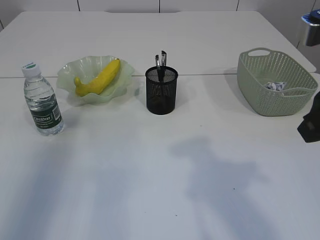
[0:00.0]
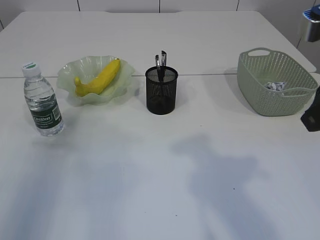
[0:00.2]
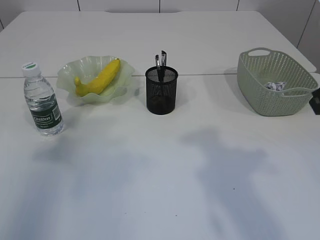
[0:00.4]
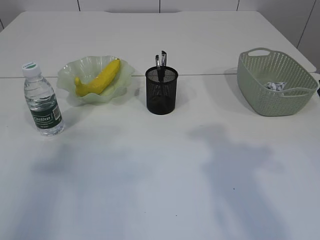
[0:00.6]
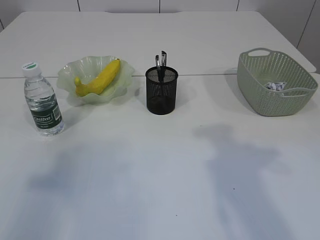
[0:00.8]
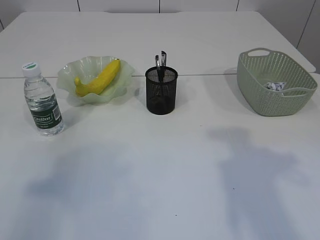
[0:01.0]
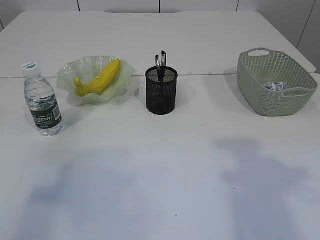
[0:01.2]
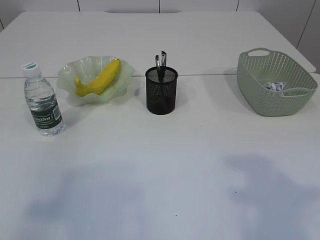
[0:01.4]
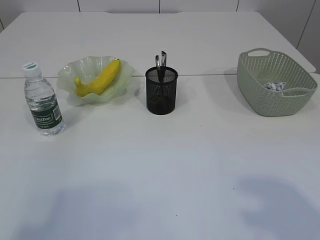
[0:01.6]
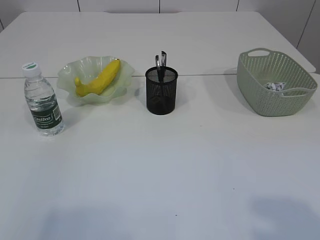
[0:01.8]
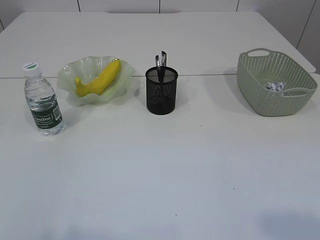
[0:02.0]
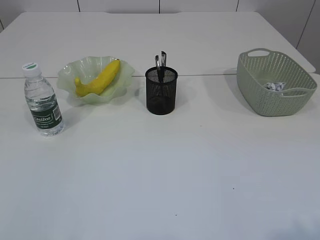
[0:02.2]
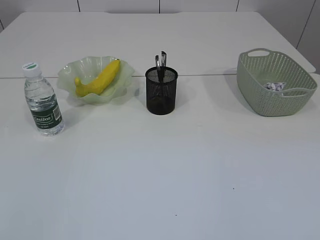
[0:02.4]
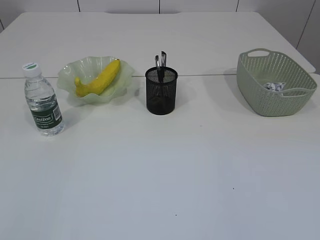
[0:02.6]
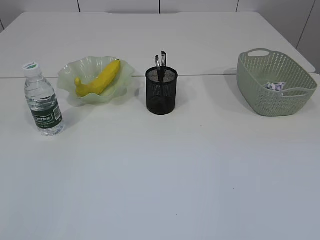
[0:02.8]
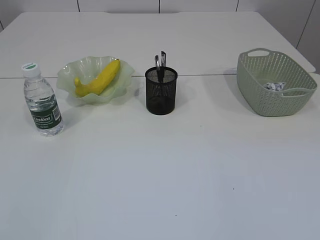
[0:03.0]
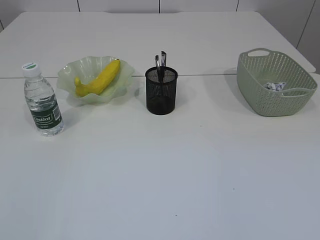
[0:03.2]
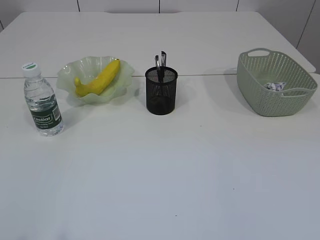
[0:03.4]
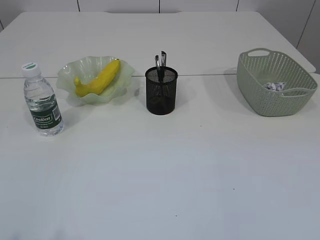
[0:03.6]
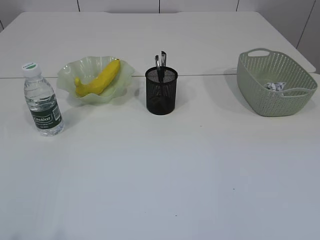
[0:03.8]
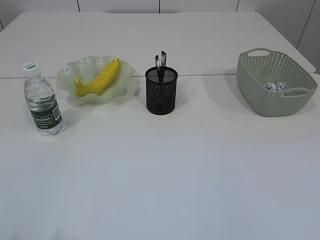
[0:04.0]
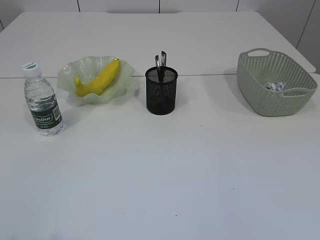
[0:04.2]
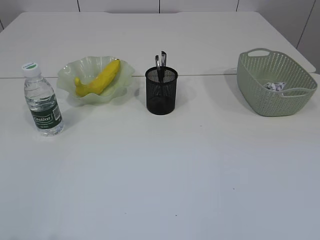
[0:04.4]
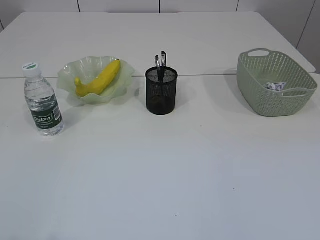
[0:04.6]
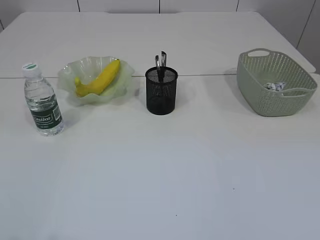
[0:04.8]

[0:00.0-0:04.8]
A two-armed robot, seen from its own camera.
0:00.0 to 0:01.6: The left gripper heads backward, covering roughly 25 cm; the right gripper is displaced backward and to the right by some 15 cm.
0:01.6 to 0:03.2: The left gripper heads downward and backward, covering roughly 10 cm.

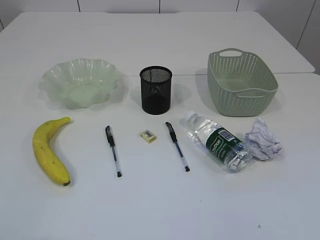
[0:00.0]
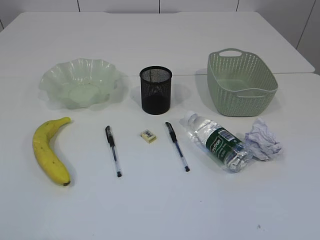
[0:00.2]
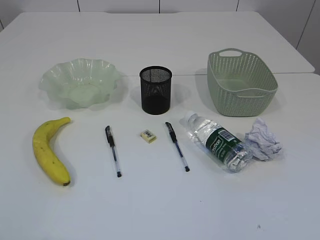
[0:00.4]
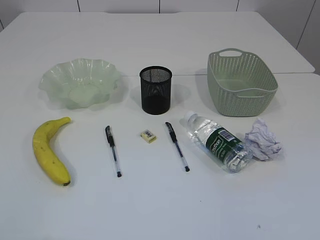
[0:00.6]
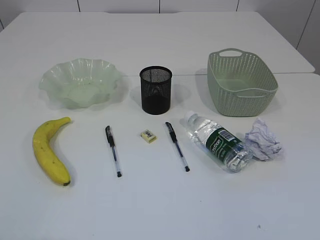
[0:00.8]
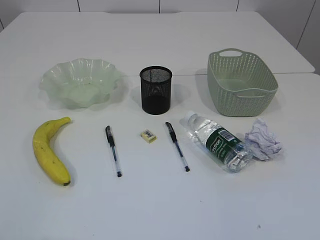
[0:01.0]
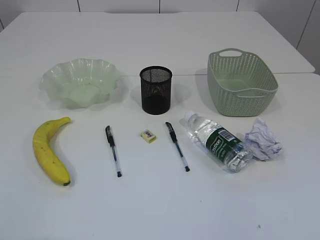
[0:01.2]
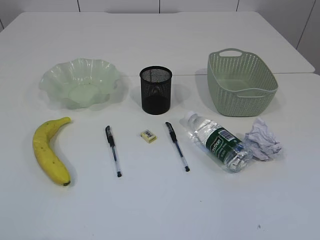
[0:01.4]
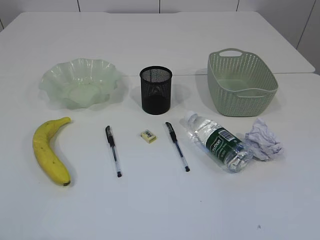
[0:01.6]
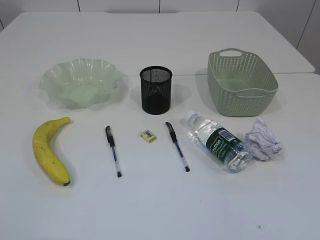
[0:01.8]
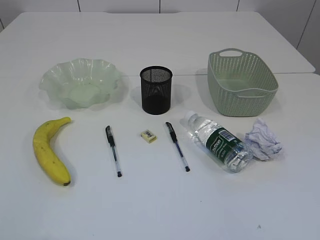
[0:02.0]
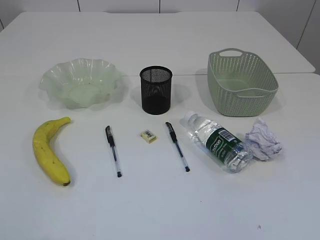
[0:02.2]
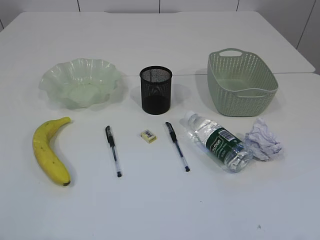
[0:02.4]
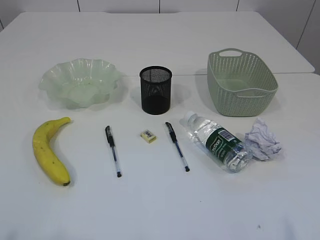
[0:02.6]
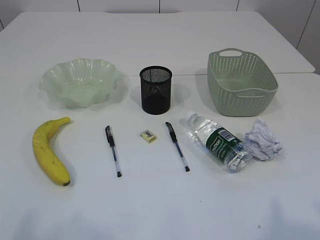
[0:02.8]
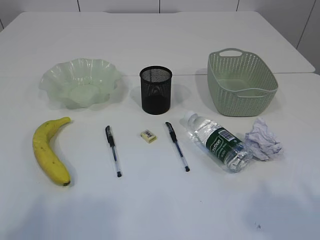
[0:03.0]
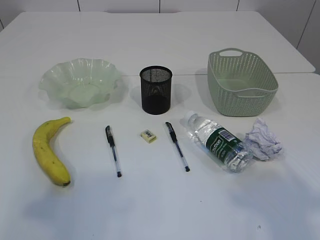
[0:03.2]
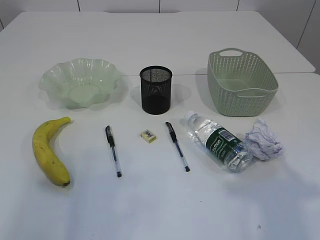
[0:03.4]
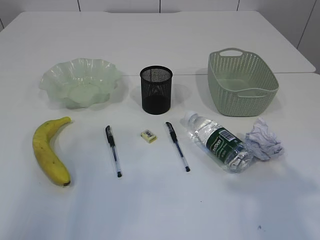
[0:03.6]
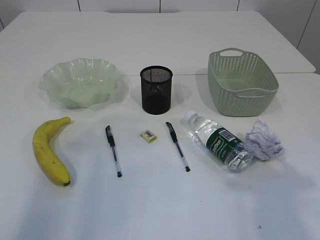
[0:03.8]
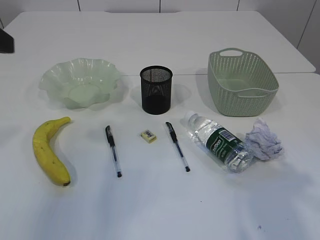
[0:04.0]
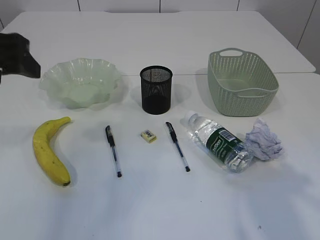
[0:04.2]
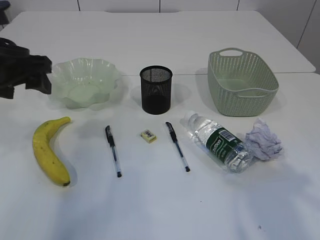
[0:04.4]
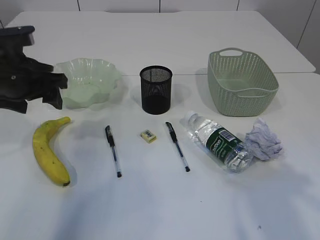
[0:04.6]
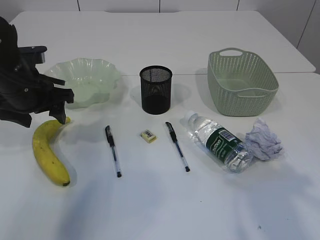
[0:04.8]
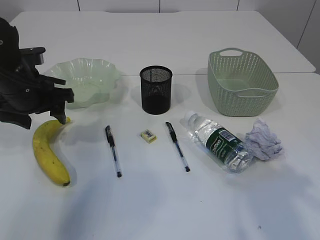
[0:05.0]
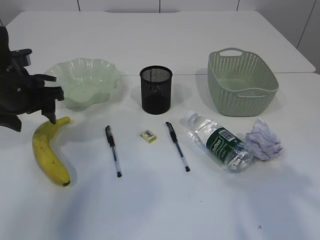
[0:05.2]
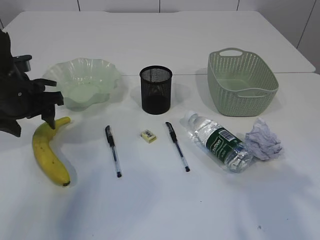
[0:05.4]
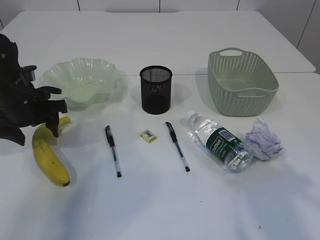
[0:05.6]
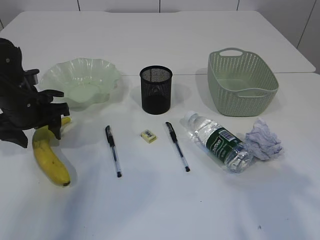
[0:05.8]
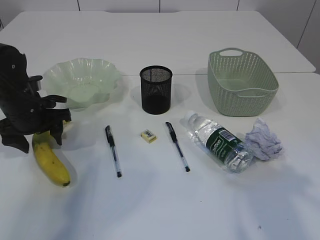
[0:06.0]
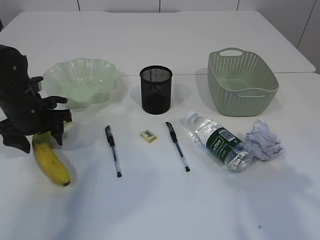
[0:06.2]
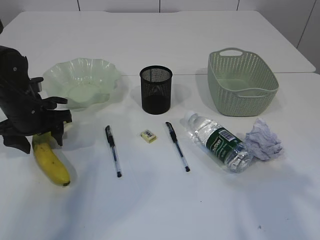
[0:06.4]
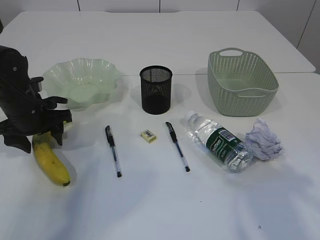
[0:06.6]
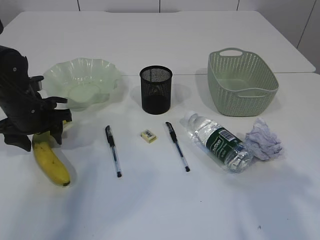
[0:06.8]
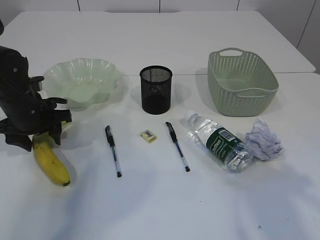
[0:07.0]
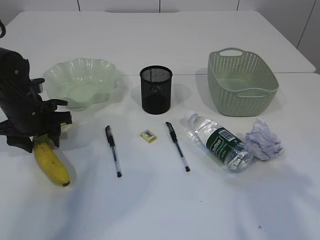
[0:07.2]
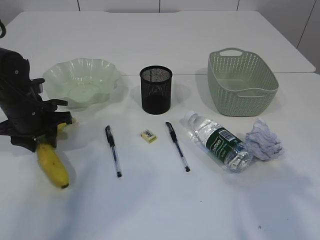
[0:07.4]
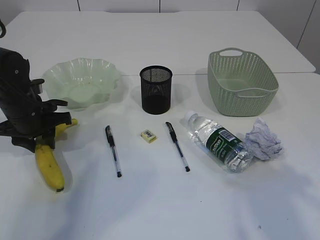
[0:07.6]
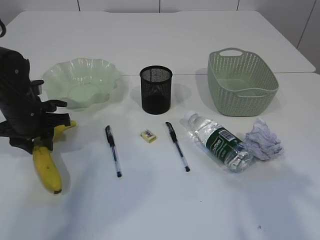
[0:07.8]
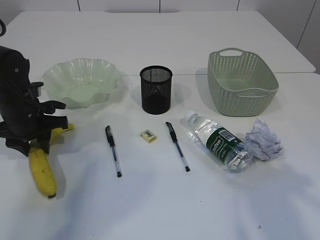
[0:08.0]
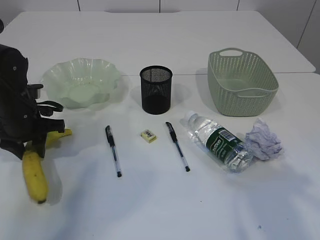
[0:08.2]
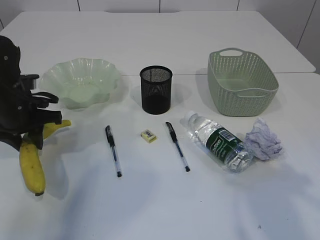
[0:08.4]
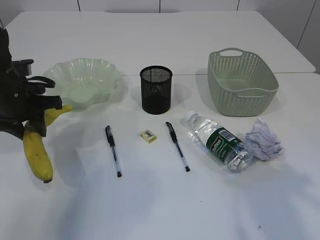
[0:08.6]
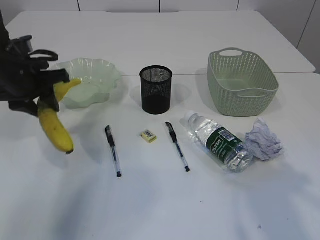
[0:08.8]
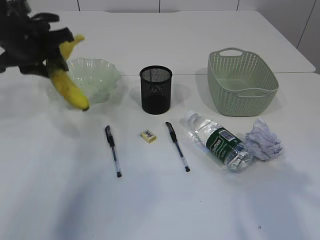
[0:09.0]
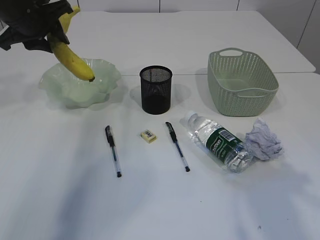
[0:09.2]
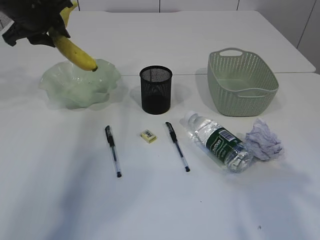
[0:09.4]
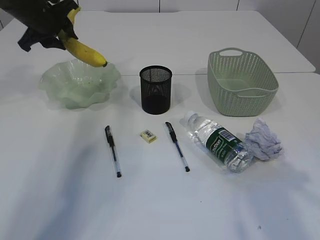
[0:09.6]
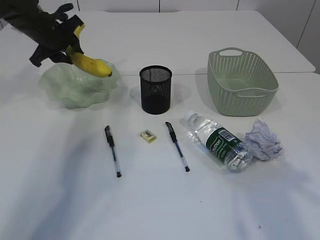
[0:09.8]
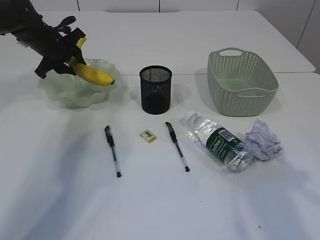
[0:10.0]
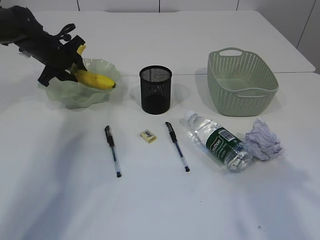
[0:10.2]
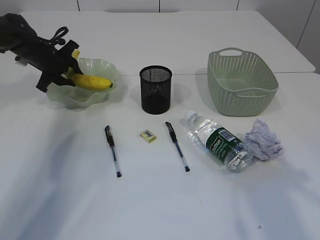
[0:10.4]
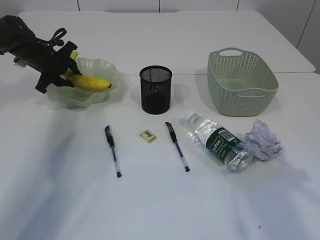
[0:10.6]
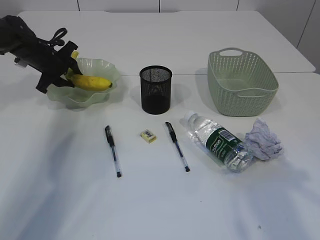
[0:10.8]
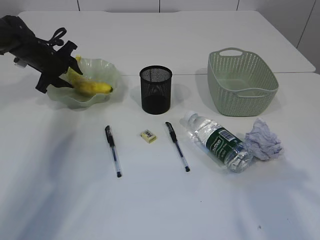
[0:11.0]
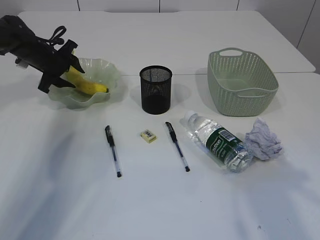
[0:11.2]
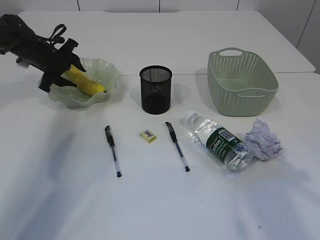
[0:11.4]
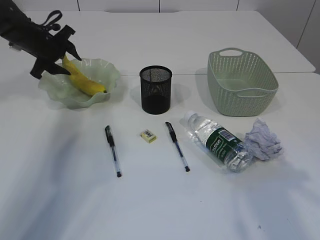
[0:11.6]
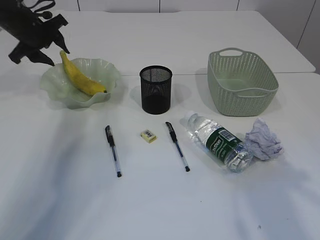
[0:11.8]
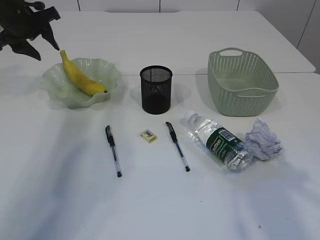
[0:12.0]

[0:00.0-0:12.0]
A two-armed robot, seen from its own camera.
Step, 0:08.8 to 0:11.8: Place the banana in the plate.
0:01.6 to 0:03.0: The left gripper moves about 5 cm.
0:03.0 to 0:04.4: The left gripper goes roughly 30 cm forward. Meanwhile the right gripper goes about 10 cm forward.
0:04.4 to 0:06.0: The left gripper goes roughly 15 cm downward and forward.
0:06.0 to 0:07.6: The left gripper closes.
0:07.6 to 0:09.0: The left gripper moves upward, approximately 10 cm.
0:09.0 to 0:10.4: The left gripper heads forward and downward, covering about 20 cm.
0:10.4 to 0:12.0: The left gripper is displaced upward by about 10 cm.

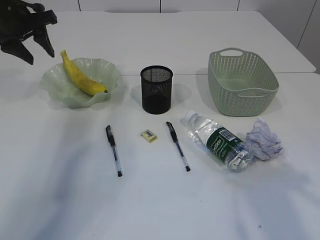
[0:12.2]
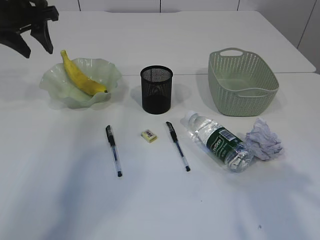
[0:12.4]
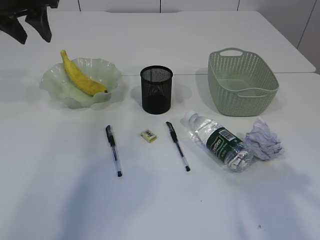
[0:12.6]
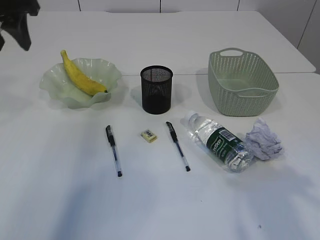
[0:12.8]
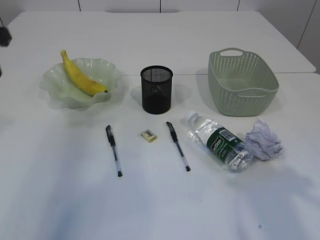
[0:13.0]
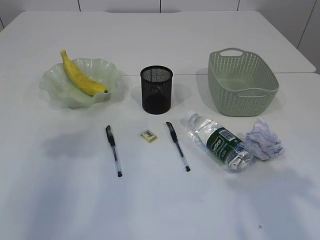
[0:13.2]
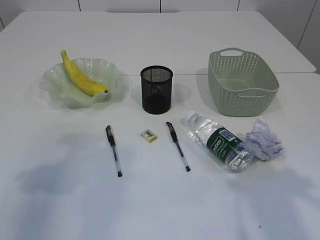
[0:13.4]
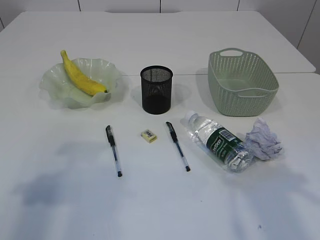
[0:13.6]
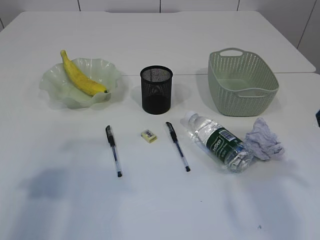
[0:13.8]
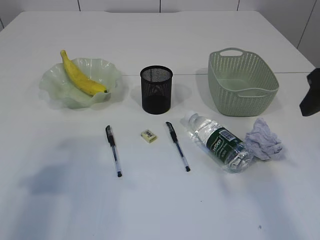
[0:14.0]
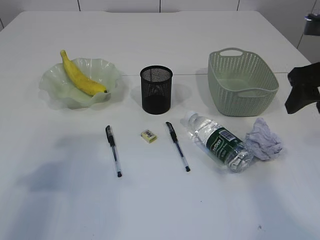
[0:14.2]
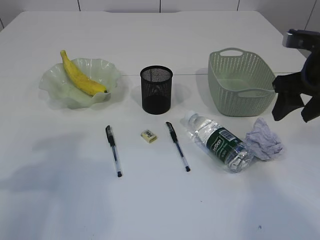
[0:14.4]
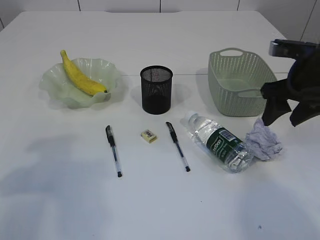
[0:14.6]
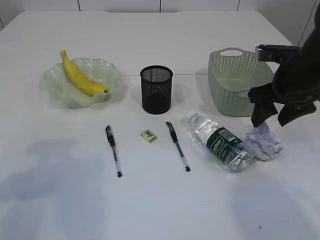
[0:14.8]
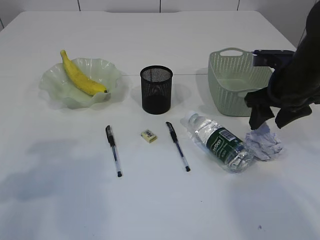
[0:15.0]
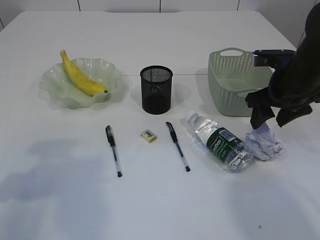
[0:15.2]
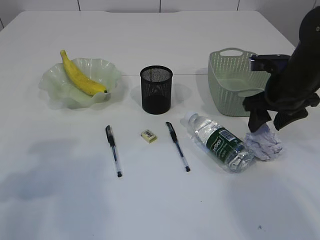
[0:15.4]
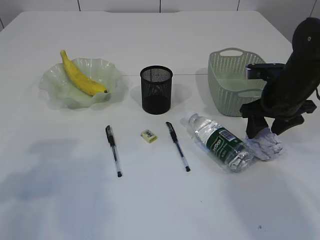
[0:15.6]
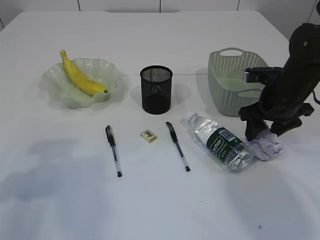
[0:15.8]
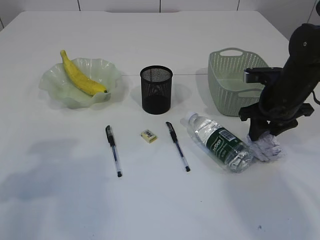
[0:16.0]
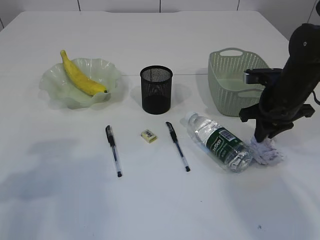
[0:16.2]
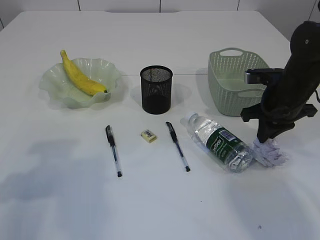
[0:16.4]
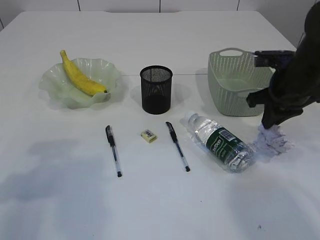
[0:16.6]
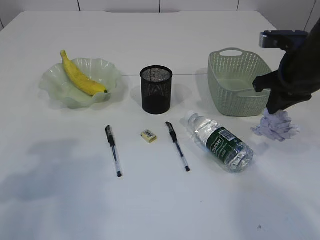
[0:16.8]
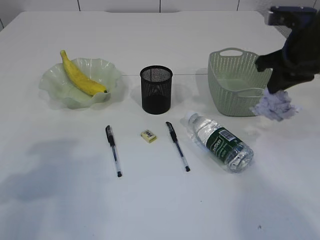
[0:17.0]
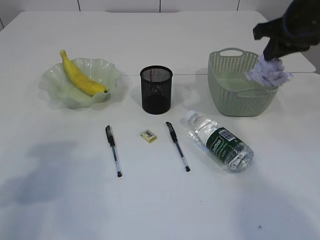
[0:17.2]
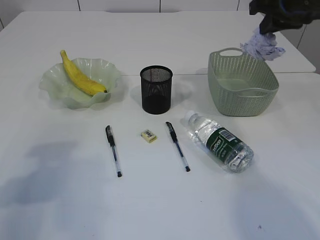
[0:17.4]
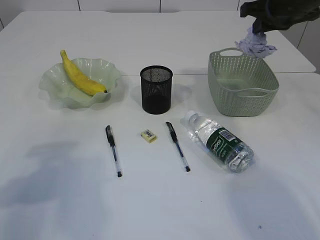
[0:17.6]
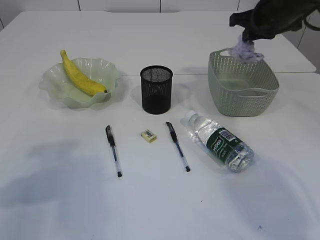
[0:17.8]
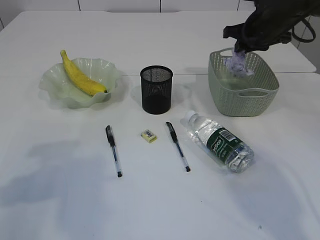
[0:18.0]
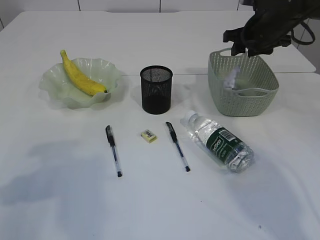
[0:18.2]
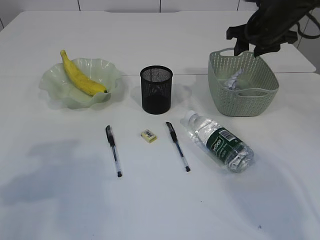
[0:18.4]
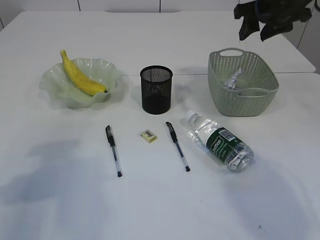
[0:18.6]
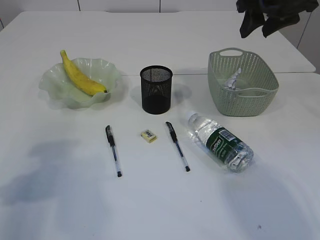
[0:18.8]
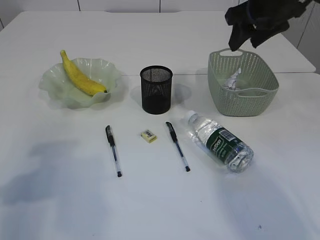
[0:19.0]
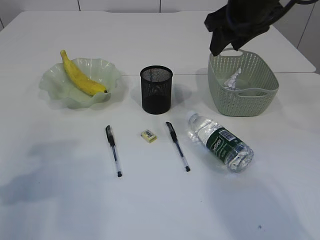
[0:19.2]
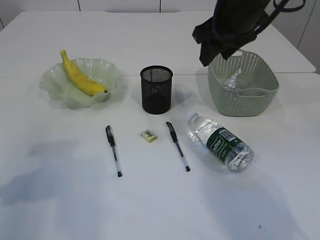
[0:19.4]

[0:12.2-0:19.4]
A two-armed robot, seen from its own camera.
Step, 0:12.2 to 0:16.6: Pick up the waste paper.
Step, 0:16.8 to 0:18.4: Place the waste paper in the basket.
0:12.2 to 0:13.6: The left gripper moves backward, roughly 30 cm.
0:13.6 to 0:15.0: The right gripper travels forward and downward by about 20 cm.
0:15.0 to 0:16.6: The right gripper closes.
0:16.6 to 0:18.0: The right gripper goes some 10 cm forward.
0:18.0 to 0:19.4: The right gripper moves to the left, backward and upward, approximately 15 cm, and opens its fingers.
